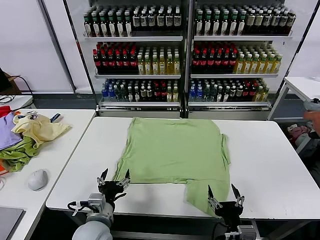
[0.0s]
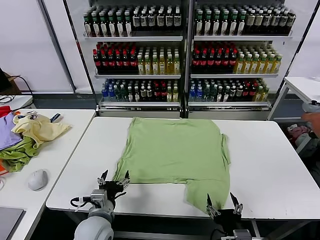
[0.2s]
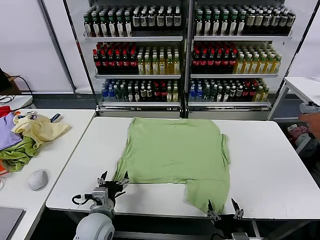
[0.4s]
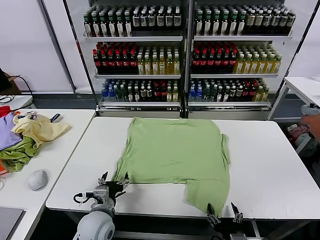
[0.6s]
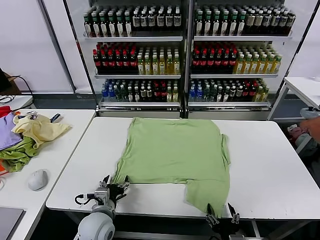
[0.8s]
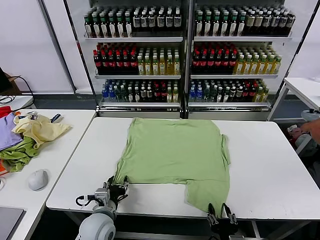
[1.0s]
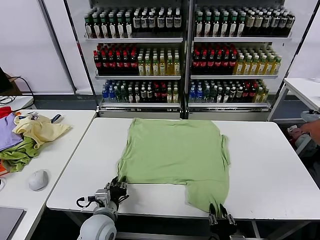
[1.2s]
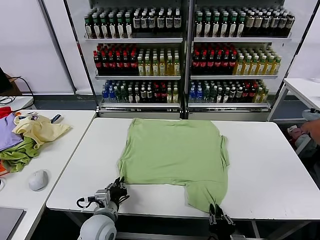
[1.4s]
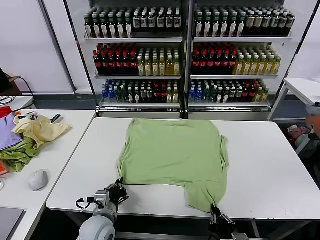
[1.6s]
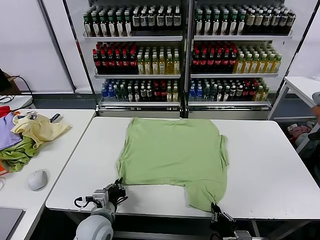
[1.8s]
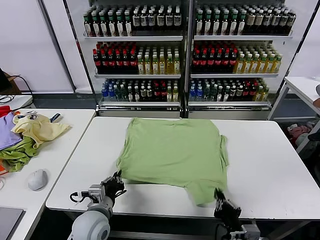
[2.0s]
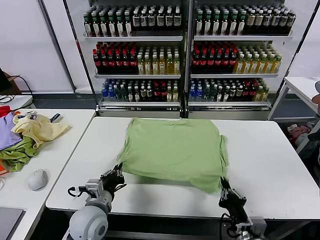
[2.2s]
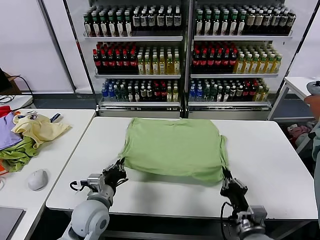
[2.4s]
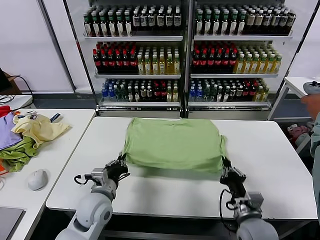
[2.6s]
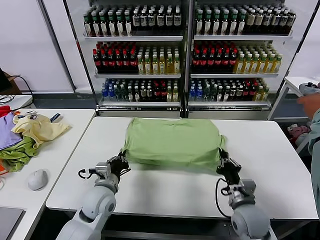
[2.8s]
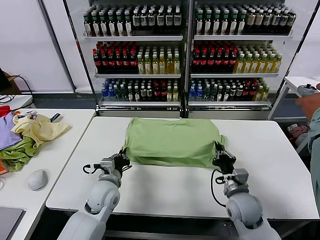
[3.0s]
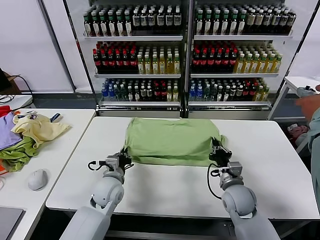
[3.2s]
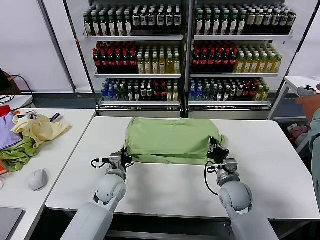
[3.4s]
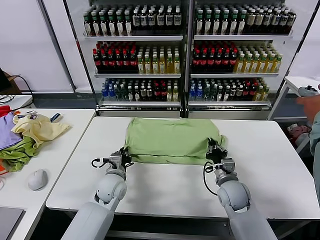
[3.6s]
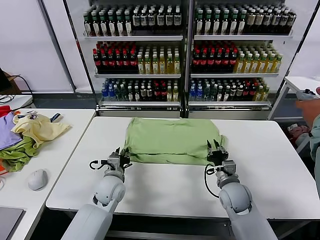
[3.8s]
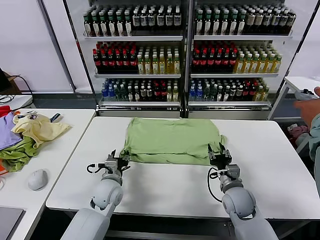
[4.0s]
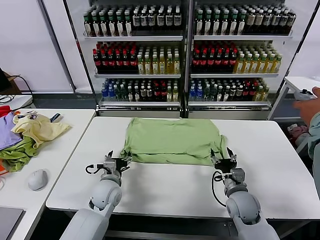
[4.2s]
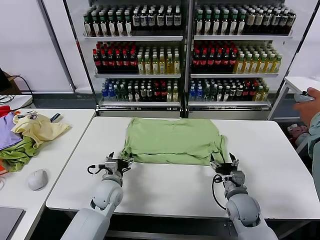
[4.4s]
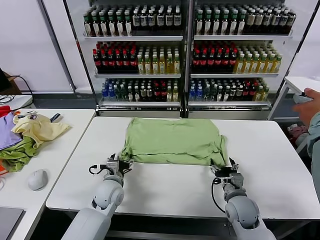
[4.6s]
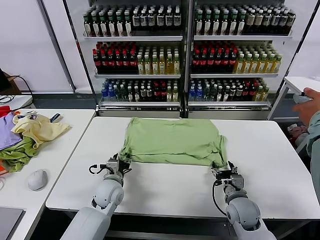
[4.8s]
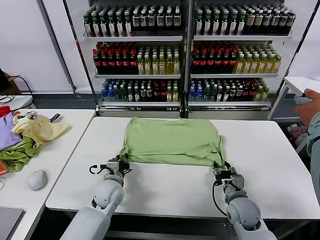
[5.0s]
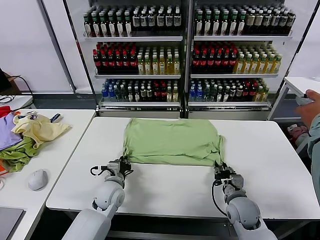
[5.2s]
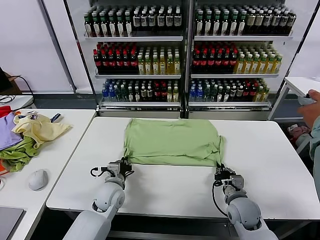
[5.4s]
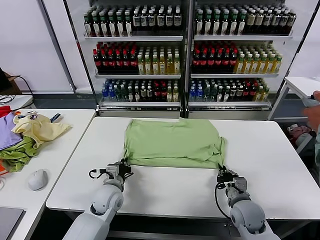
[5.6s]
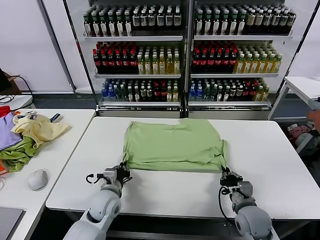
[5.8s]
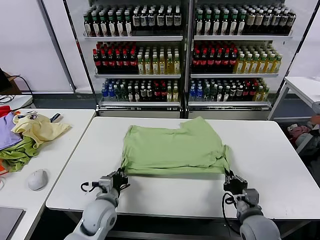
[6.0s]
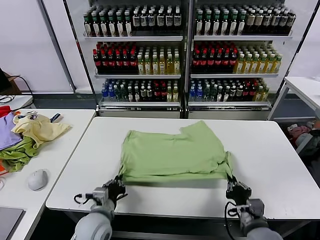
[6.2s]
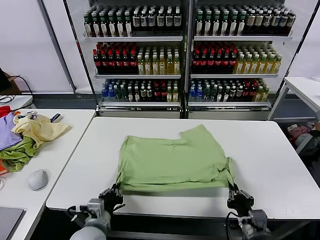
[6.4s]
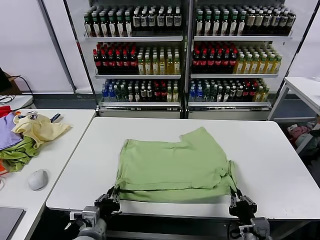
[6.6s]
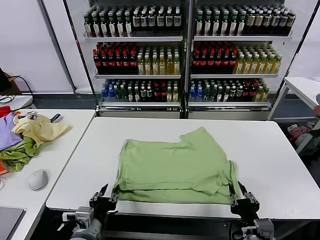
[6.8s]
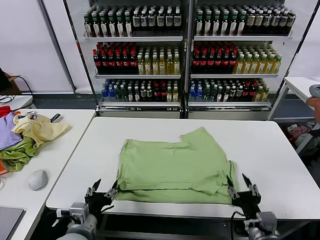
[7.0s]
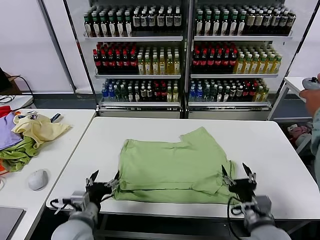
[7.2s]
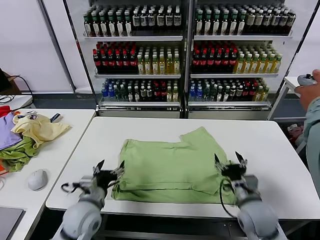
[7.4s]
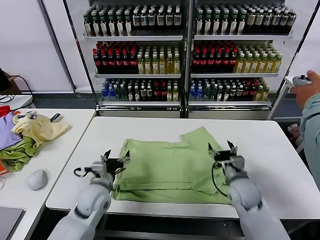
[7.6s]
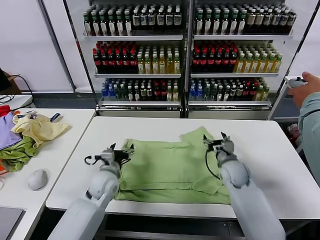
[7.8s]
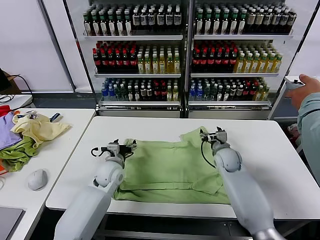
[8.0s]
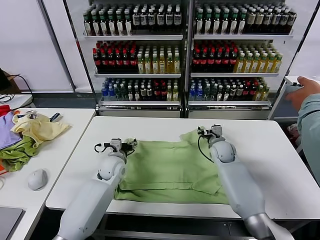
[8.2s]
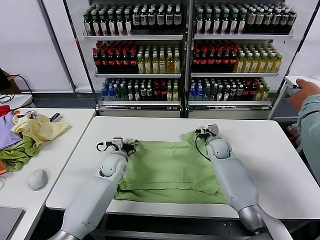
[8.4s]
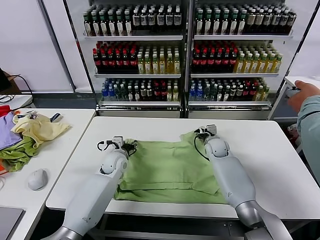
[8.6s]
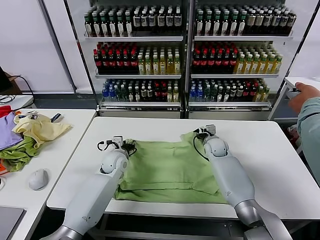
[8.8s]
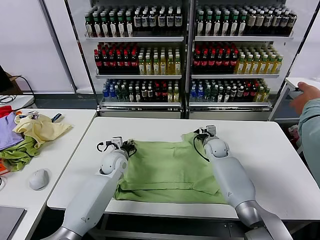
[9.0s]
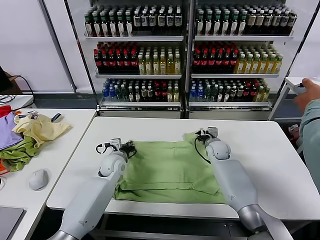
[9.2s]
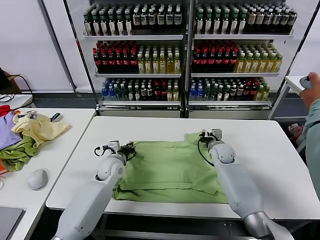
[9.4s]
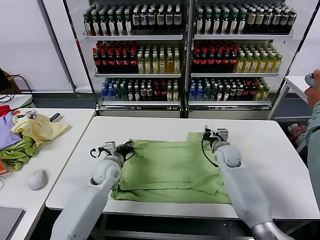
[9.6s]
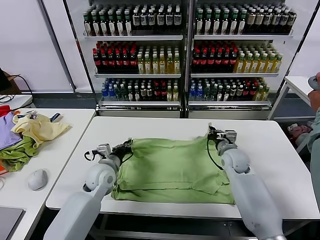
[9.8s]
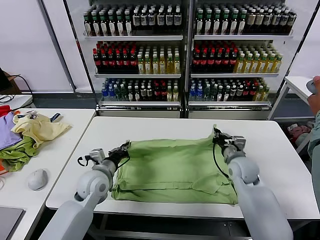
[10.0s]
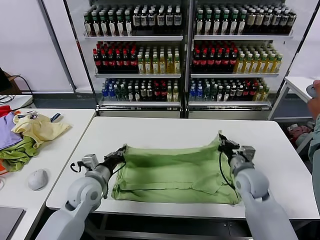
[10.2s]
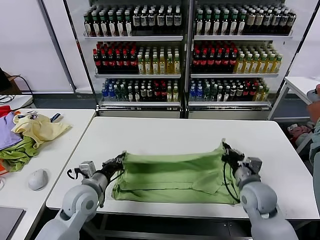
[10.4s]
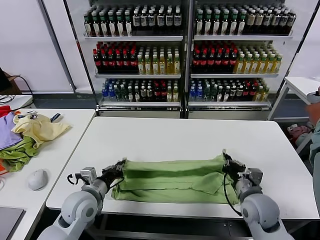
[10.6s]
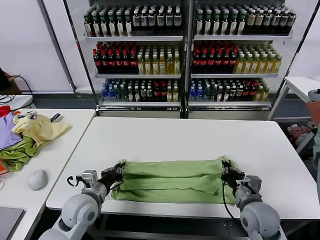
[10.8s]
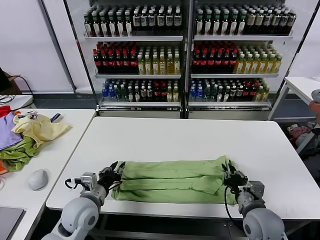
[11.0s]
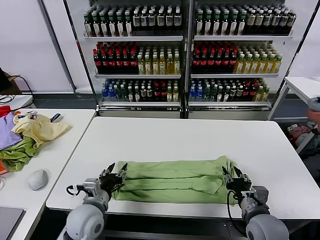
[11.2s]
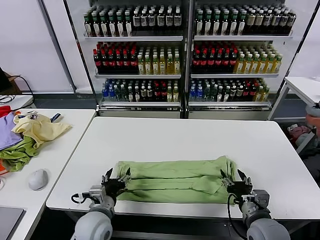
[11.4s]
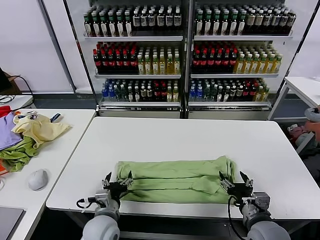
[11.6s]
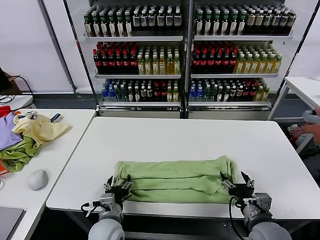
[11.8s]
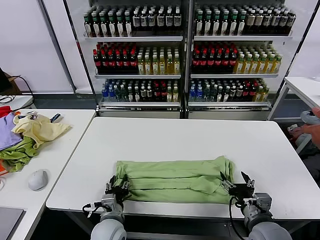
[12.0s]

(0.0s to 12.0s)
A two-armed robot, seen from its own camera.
Task of the whole recording: fold and organize the clothes.
Step, 0.0s - 1.6s: use both grippers simultaneously to clamp the lower edge of the clothing fabric.
Step, 1.8s - 3.8s: use both grippers to drag the lower edge of the fabric forward and fold it over the upper edge.
Step, 4.0s - 6.8s: Drag the clothes downward with both gripper.
Step, 7.0s - 9.2s: use both grippers simultaneously to clamp the upper edge of the clothing fabric.
Step, 9.4s - 11.0s: use both grippers to drag the upper edge of the fabric backward and fold it over the lower edge.
1.6s - 3.0s: The left gripper shifts some 10 cm forward. The right gripper moves forward, some 20 cm.
3.0s - 4.4s: The right gripper opens its fingers. Meanwhile the left gripper opens up.
4.4s - 6.0s: The grippers both shift backward by about 10 cm. The left gripper closes; the right gripper closes up.
6.0s - 7.6s: The left gripper goes backward and returns, about 10 cm each way, and opens up. The right gripper goes roughly 15 cm forward, and opens its fingers.
7.6s - 9.0s: Both grippers move forward, roughly 15 cm. The left gripper closes its fingers; the right gripper closes.
9.0s - 10.4s: The left gripper goes approximately 15 cm backward, while the right gripper goes some 25 cm backward.
10.4s - 12.0s: The left gripper is displaced to the right, downward and backward by roughly 15 cm, and opens, while the right gripper shifts some 10 cm backward, and opens its fingers.

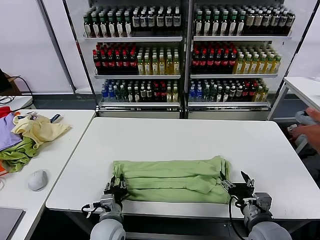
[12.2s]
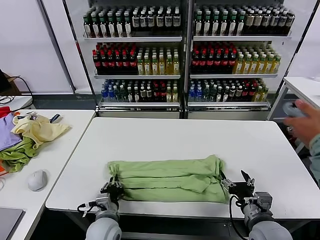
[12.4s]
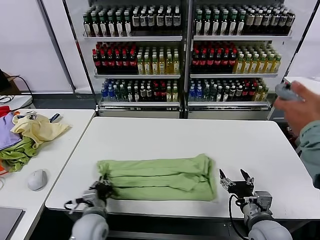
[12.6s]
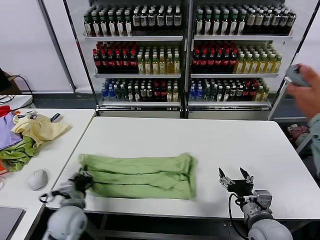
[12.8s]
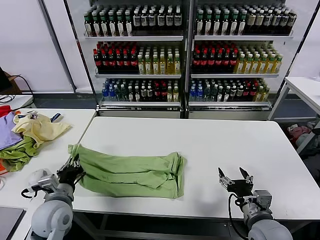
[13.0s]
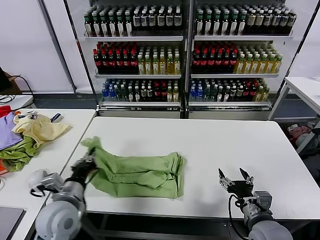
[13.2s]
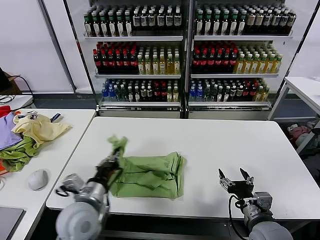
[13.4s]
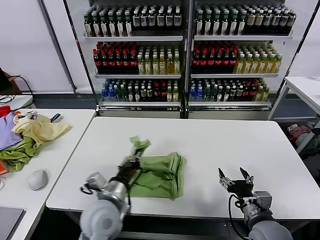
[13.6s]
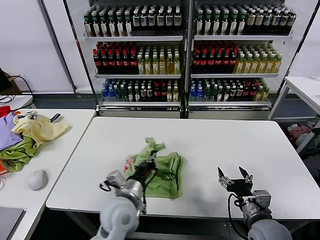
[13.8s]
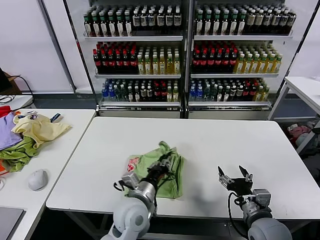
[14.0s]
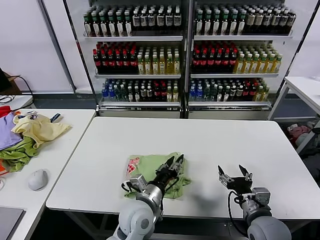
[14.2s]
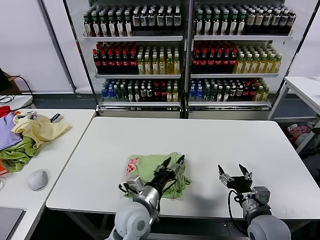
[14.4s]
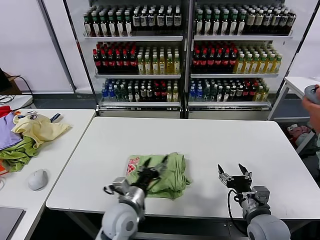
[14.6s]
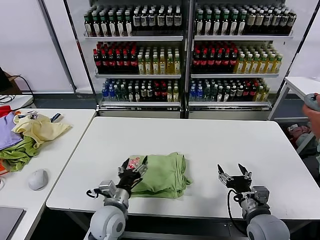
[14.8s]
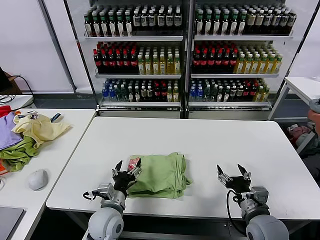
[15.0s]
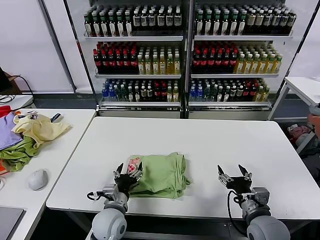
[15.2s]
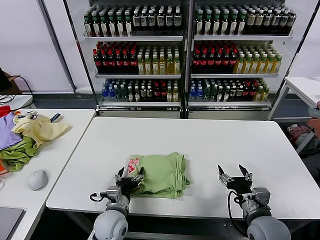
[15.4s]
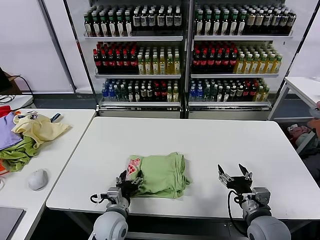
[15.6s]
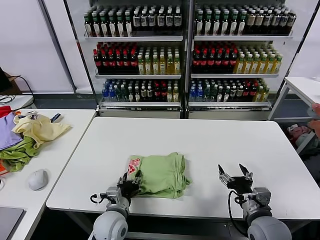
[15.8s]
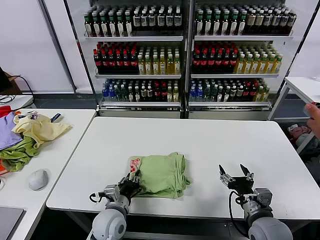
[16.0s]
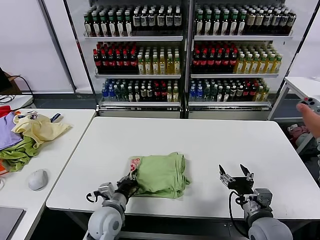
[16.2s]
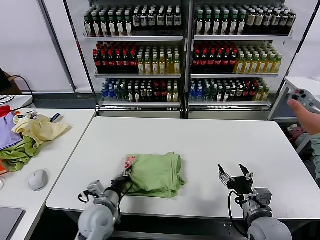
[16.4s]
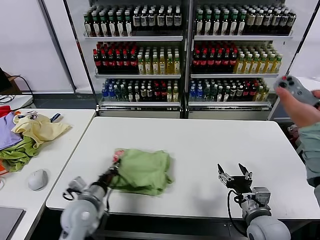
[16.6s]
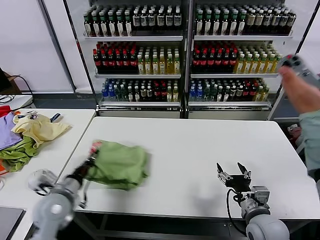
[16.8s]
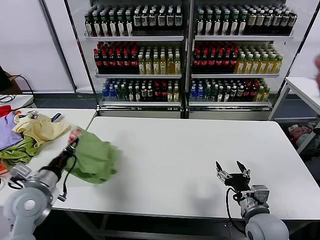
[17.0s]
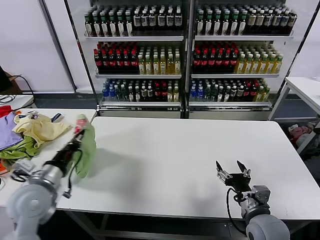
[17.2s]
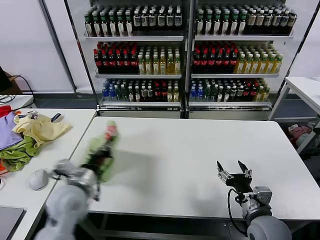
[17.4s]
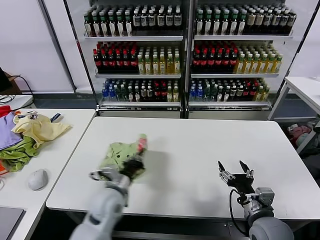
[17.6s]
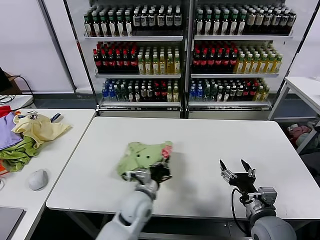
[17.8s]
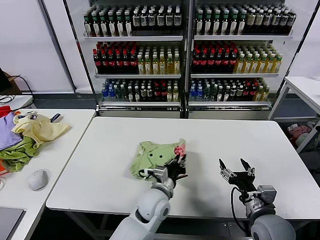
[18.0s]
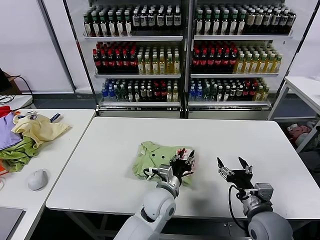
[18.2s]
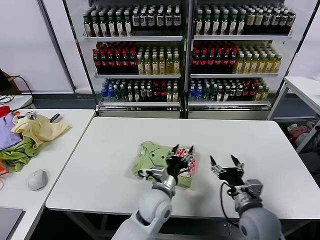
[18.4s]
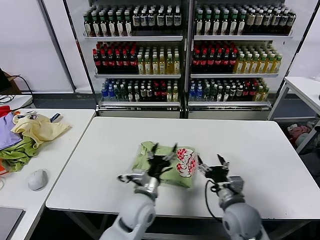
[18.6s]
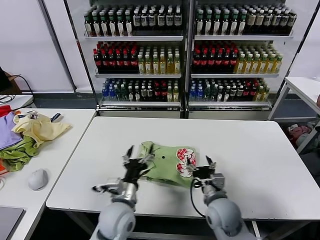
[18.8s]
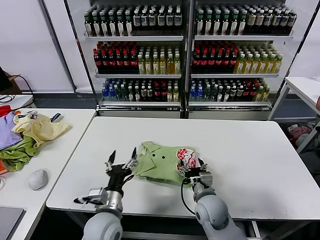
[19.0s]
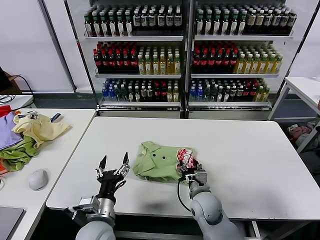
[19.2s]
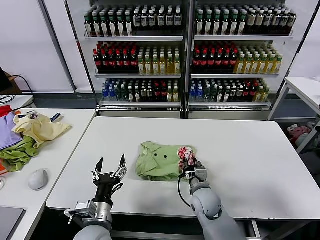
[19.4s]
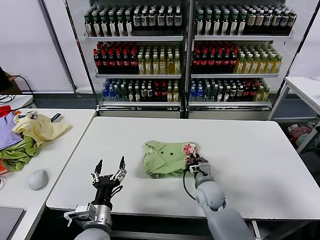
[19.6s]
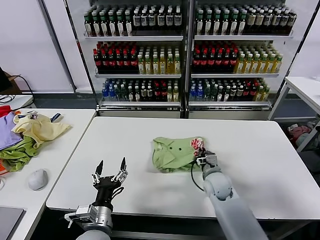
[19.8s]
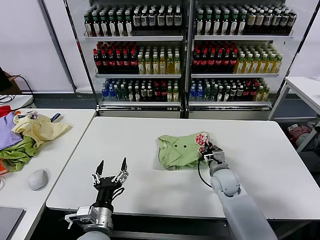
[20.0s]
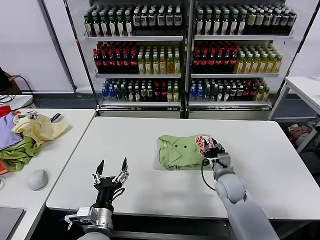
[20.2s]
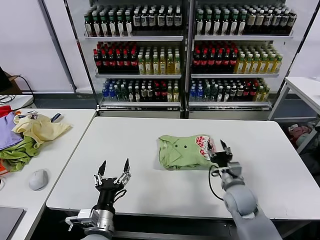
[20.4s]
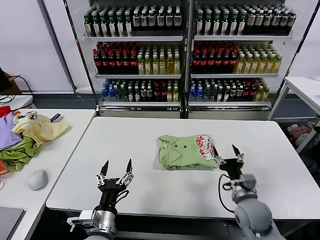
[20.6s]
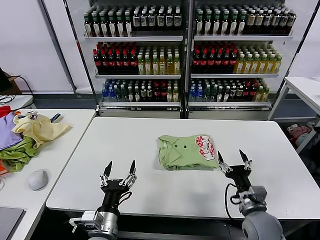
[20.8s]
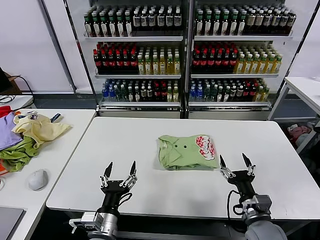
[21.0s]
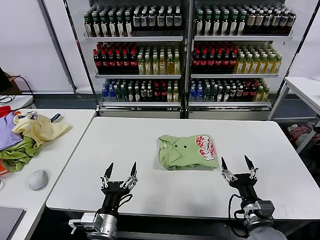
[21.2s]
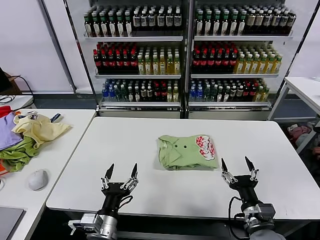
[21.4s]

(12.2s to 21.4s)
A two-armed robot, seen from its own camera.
Task of the whole recording: fold and organize the clothes.
Step, 12.4s - 14.2s: use the left gripper to drag the left edge of the fabric to the left and folds it over the right edge.
Step, 14.4s - 18.2s: Flip the folded clothes over with left gripper.
Step, 18.4s - 20.2s: Drag the clothes to the center of the table.
12.2s - 13.8s: The left gripper is displaced upward by approximately 10 cm, and moves approximately 15 cm to the left and comes back.
13.8s - 15.2s: The left gripper shifts some 10 cm downward, and opens.
15.2s - 16.8s: The left gripper moves to the left and upward, about 15 cm, and closes.
16.8s - 18.4s: The left gripper heads to the right, covering some 30 cm, and opens.
18.4s - 19.8s: The left gripper shifts roughly 20 cm to the left and backward; the right gripper shifts some 20 cm forward, to the left and downward, and closes its fingers.
19.8s - 21.4s: The right gripper heads backward and to the right, covering roughly 20 cm, and opens up.
